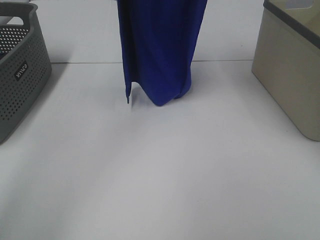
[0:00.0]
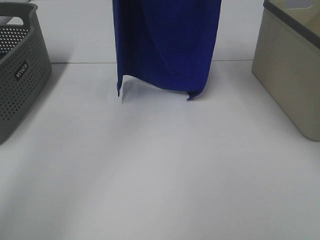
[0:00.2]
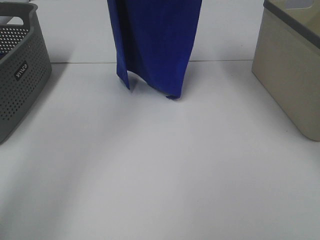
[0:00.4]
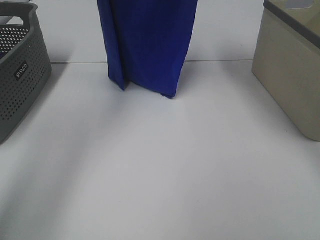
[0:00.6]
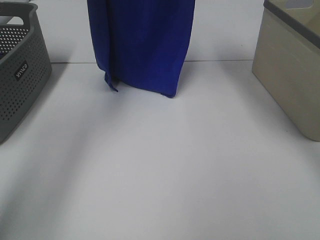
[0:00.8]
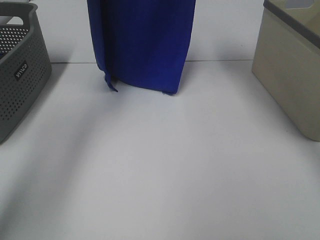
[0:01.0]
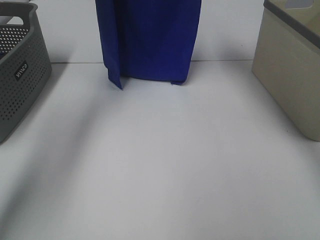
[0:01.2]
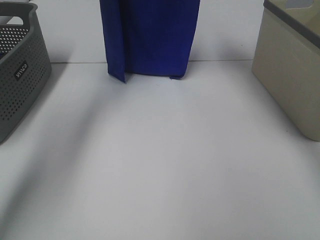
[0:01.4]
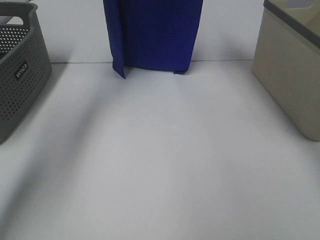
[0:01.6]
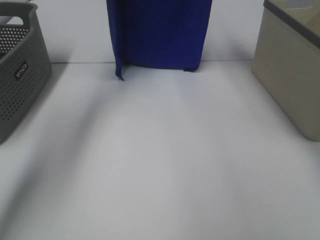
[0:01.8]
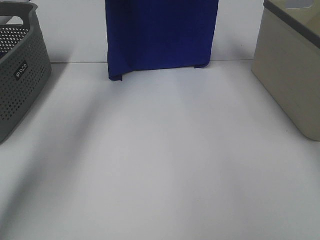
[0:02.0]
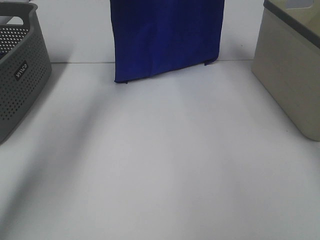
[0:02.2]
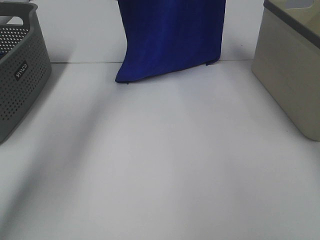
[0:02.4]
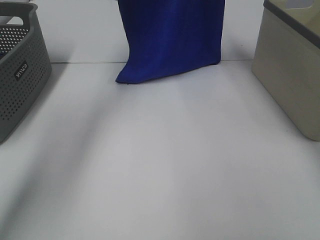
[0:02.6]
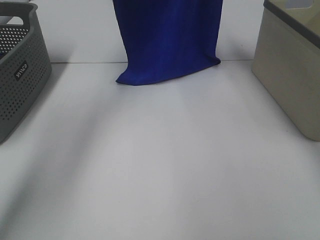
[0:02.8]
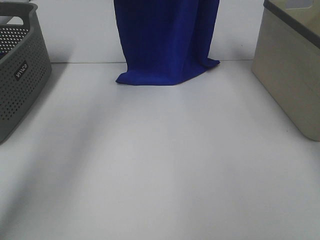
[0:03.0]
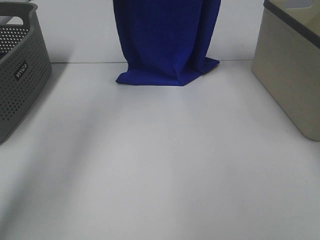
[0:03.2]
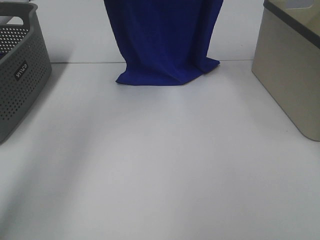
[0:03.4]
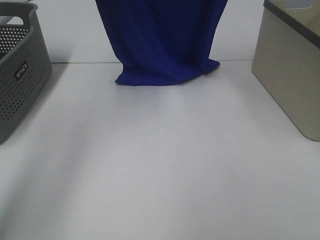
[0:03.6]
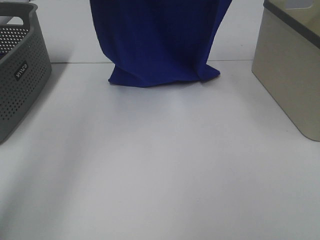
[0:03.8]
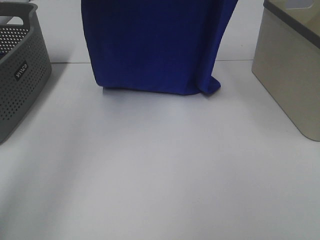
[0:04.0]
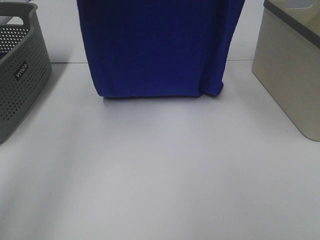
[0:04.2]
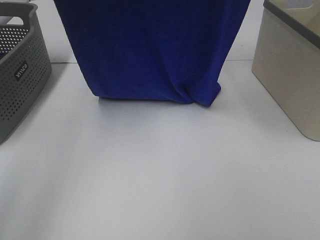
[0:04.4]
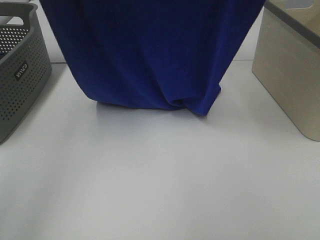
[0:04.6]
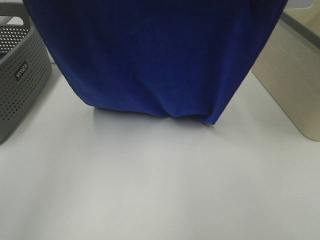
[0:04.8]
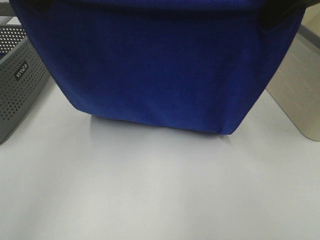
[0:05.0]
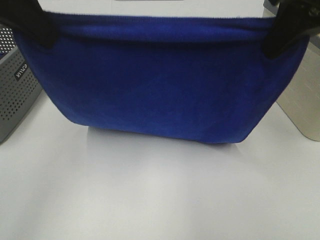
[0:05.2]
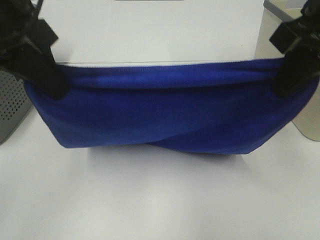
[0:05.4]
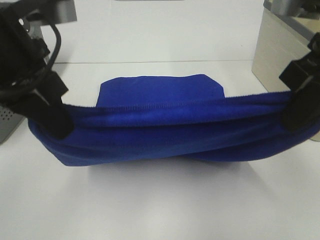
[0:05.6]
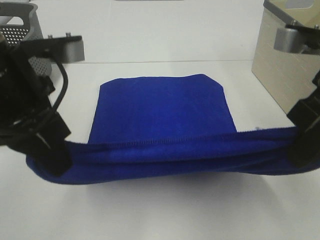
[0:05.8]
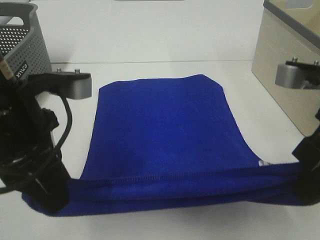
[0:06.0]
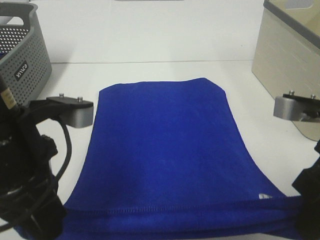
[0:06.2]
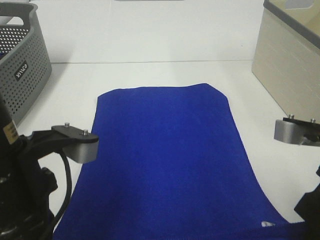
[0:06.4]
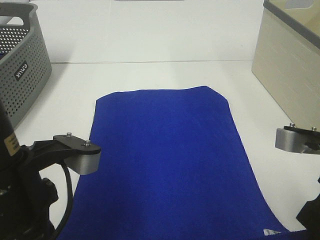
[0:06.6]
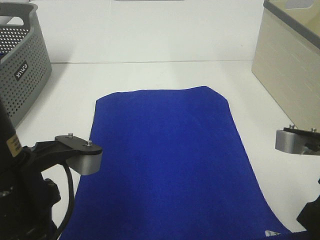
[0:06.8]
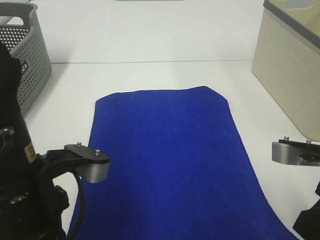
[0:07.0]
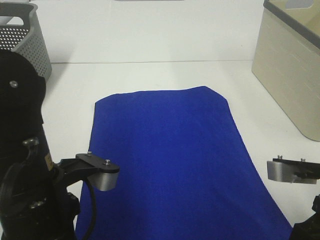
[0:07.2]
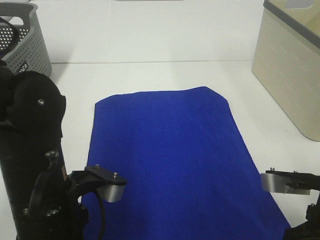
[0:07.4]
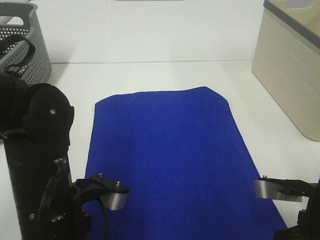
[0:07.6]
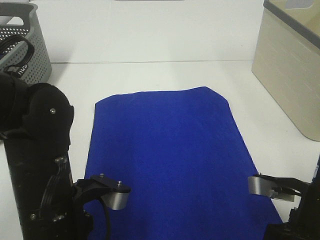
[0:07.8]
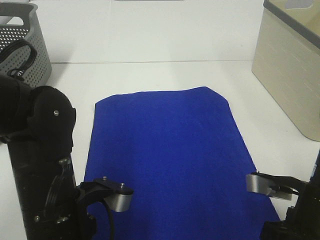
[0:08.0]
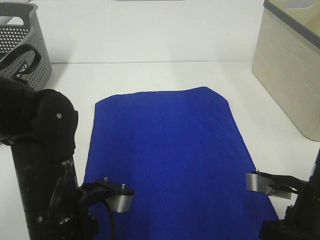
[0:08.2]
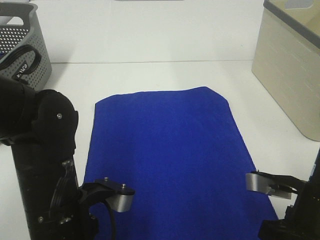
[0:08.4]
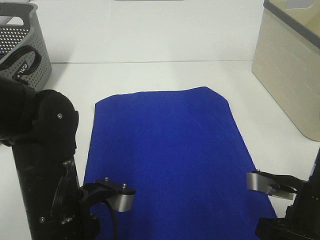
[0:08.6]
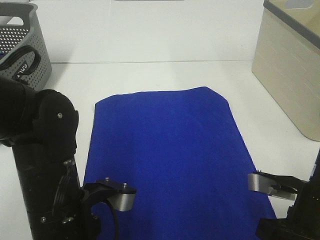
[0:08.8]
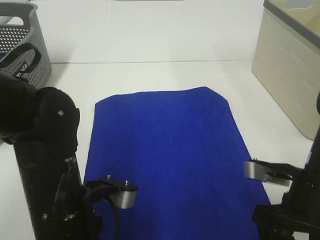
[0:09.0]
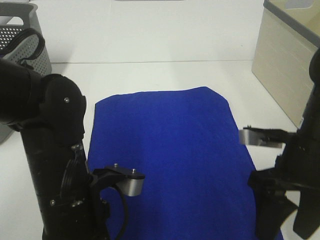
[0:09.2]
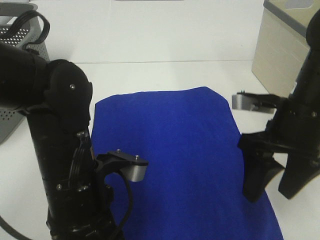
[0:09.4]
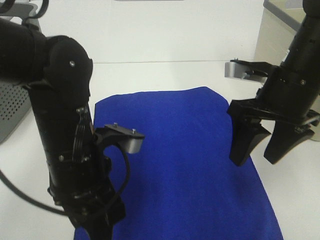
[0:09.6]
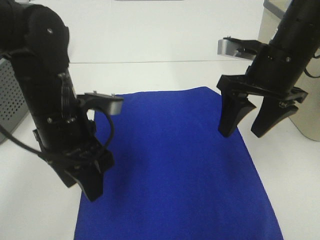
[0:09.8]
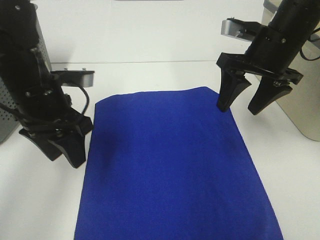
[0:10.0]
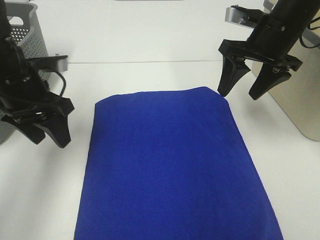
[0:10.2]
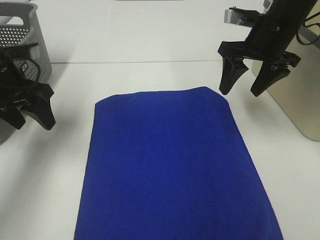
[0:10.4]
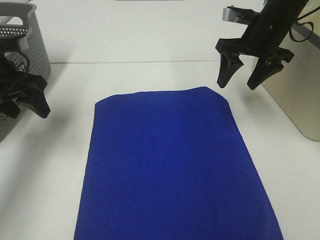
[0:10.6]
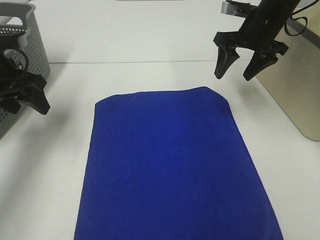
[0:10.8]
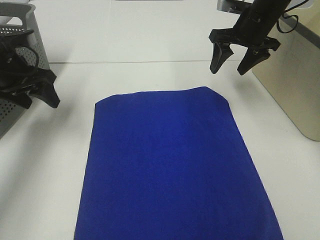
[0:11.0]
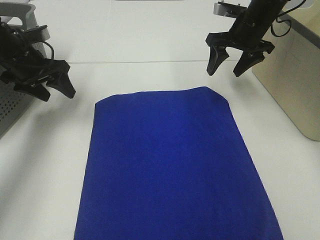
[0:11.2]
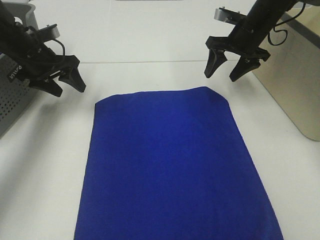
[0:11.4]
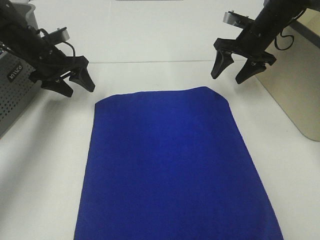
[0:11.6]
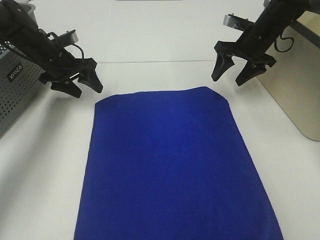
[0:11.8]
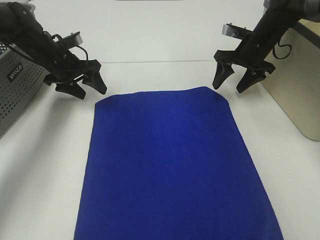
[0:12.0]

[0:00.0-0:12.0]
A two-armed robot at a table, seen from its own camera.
Task of the whole recording: Remove the towel and place it.
Step, 0:00.0 to 0:03.8: Left hand: spread the blue towel flat on the table.
Step, 0:00.0 to 0:03.8: Right hand: spread the blue towel flat on the table.
0:00.0 to 0:01.6: Both grippers move forward and downward, some 15 cm.
0:03.0 to 0:04.4: The two grippers go approximately 15 cm backward.
0:04.4 to 0:06.0: The grippers both shift downward and backward by about 25 cm.
0:06.0 to 0:07.6: The grippers both shift downward by roughly 10 cm.
0:07.6 to 0:09.0: The left gripper opens its fingers. Meanwhile the right gripper opens up.
0:09.0 to 0:10.4: The left gripper goes approximately 25 cm forward and to the left; the right gripper is displaced forward and upward by some 25 cm.
0:10.4 to 0:12.0: The two grippers go about 15 cm forward and downward.

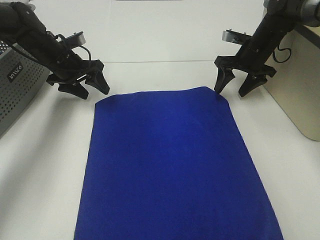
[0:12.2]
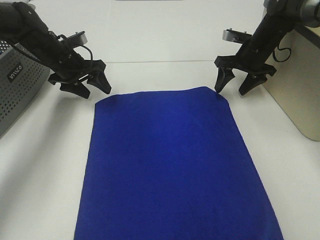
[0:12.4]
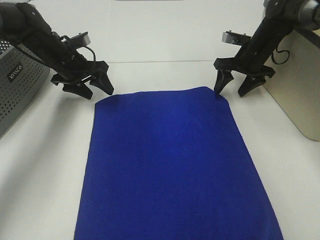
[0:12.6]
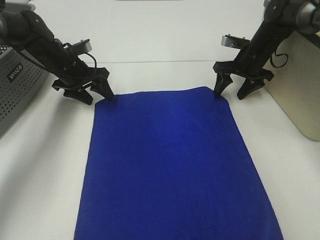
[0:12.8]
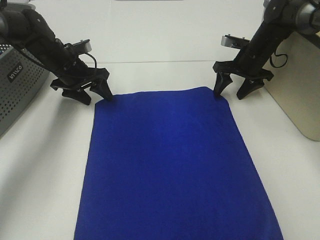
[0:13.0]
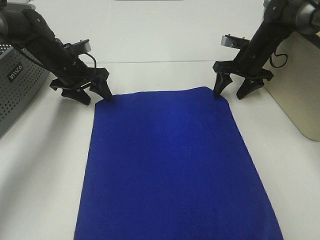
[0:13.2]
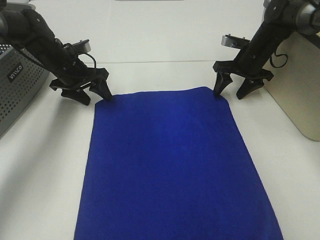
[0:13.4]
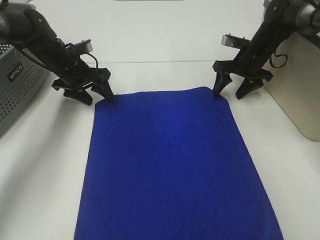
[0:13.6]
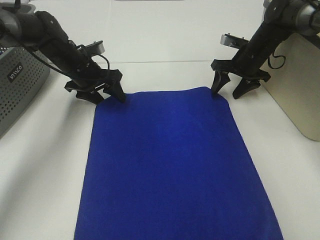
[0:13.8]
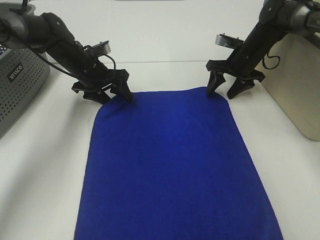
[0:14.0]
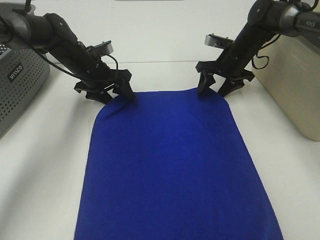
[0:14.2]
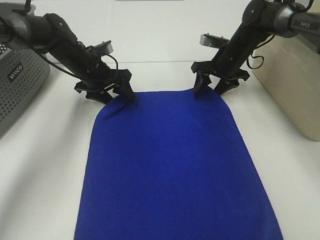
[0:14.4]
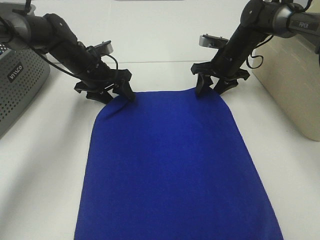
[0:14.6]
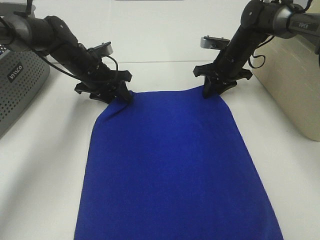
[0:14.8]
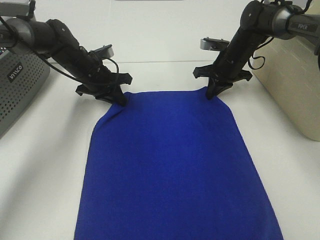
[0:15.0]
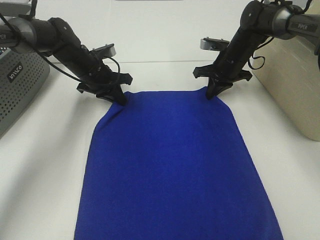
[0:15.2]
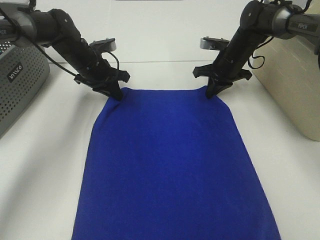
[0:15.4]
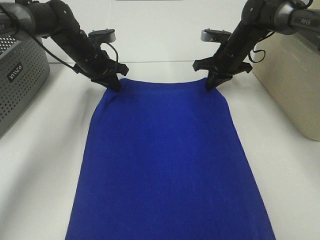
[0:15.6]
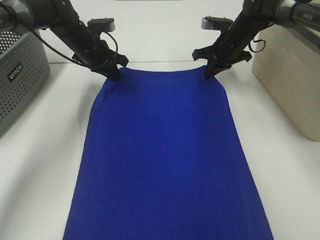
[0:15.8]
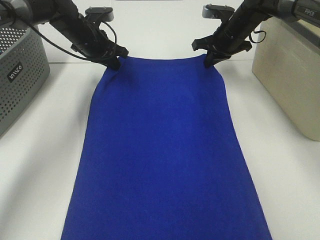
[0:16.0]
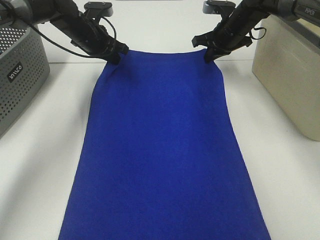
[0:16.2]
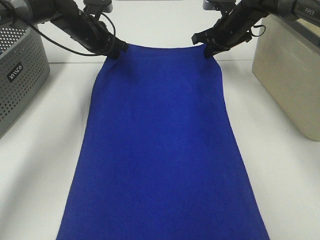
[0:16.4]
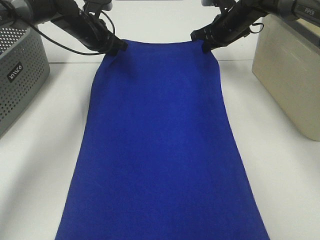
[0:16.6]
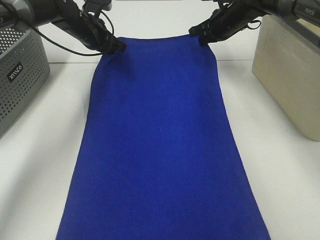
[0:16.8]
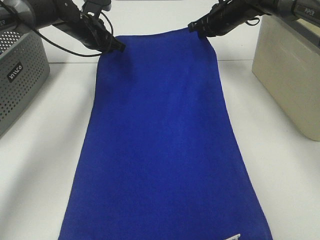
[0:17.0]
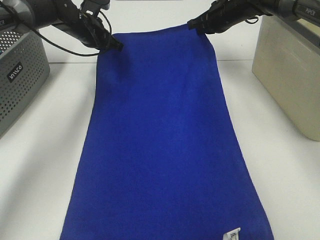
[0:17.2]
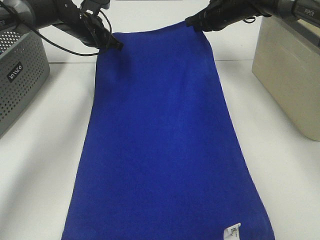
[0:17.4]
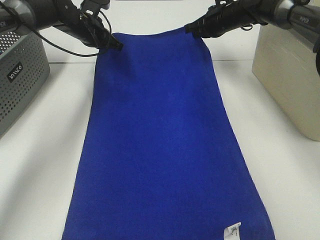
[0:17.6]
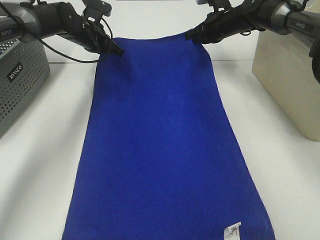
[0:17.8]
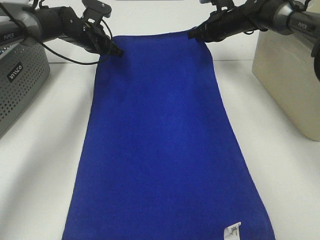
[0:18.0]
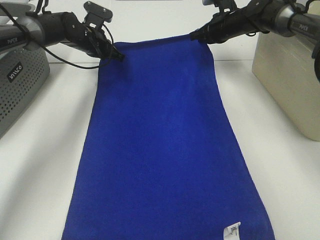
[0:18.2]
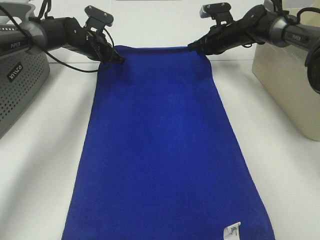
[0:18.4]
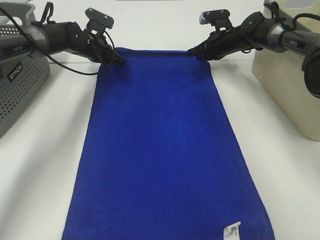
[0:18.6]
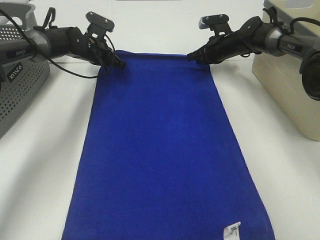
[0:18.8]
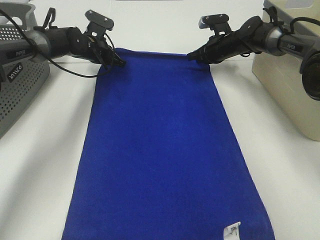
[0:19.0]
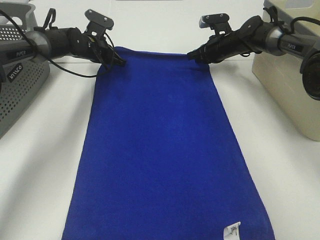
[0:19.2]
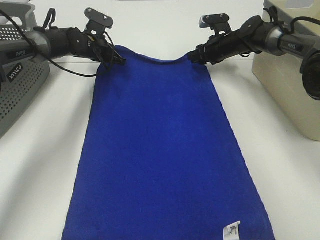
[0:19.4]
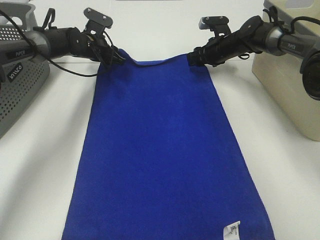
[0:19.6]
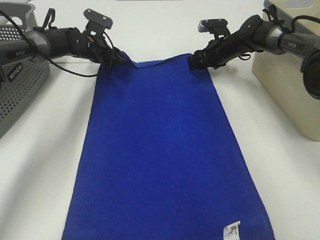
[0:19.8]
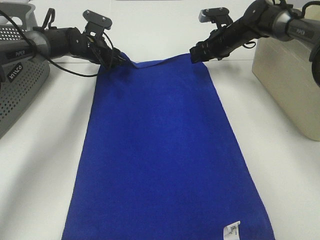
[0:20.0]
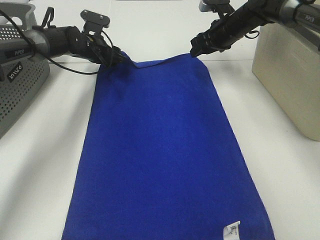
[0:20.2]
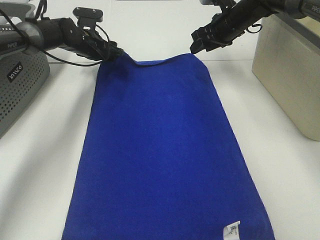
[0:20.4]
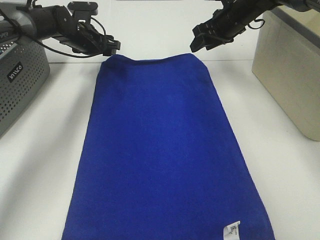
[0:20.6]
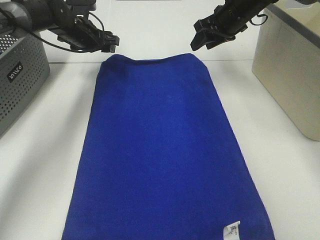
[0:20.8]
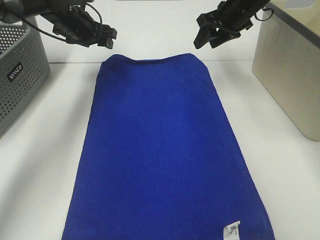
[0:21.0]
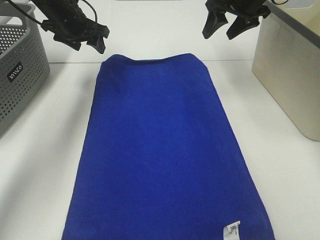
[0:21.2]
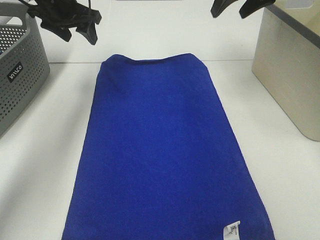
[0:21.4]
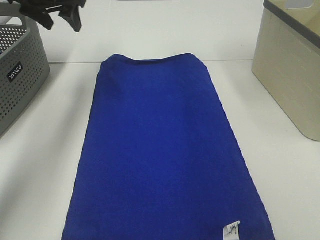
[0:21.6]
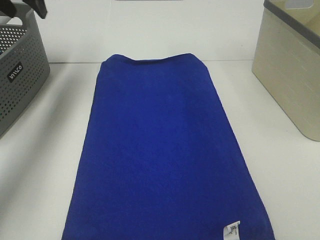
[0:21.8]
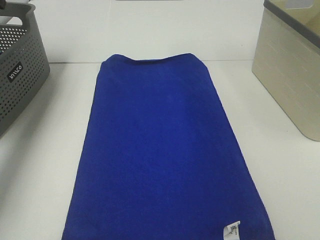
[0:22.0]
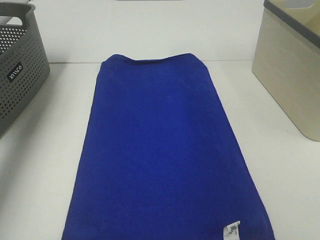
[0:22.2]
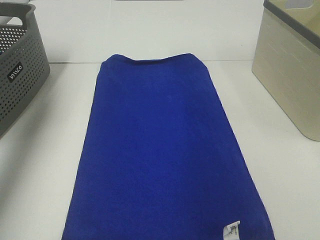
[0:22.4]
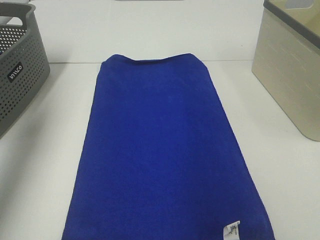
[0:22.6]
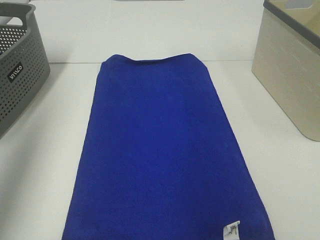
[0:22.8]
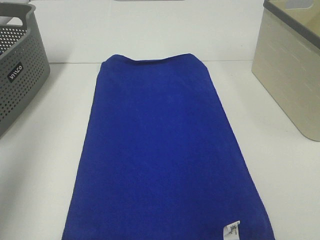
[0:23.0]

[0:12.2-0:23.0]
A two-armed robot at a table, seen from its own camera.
Task of the whole recording: Remove the towel and place it.
0:12.2 to 0:13.8: The grippers make only small movements.
0:13.8 to 0:15.2: The left gripper closes, while the right gripper closes.
0:15.2 to 0:16.8: The left gripper is displaced upward and forward by some 10 cm. The right gripper heads upward, covering some 5 cm.
0:16.8 to 0:18.4: The right gripper heads downward, covering about 5 cm. Meanwhile the left gripper changes place by roughly 5 cm.
0:18.4 to 0:20.0: The left gripper opens its fingers, while the right gripper opens up.
0:20.0 to 0:21.4: Both grippers travel together upward and backward, about 20 cm.
0:21.4 to 0:23.0: The right gripper is displaced backward by approximately 40 cm. Meanwhile the left gripper shifts roughly 35 cm backward and to the left.
